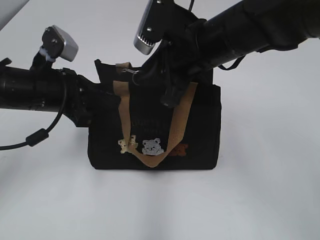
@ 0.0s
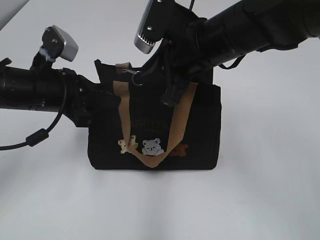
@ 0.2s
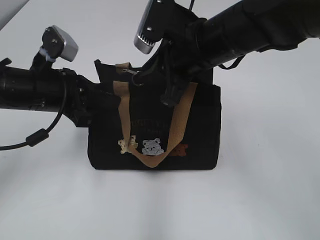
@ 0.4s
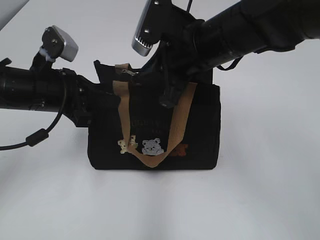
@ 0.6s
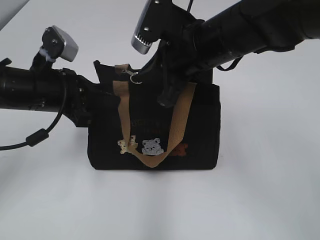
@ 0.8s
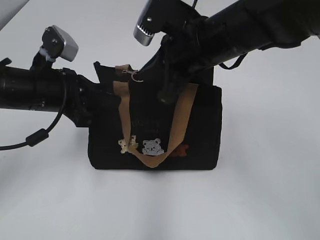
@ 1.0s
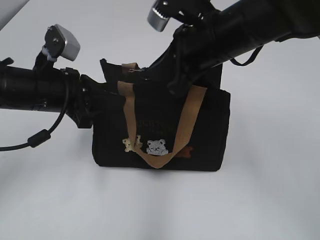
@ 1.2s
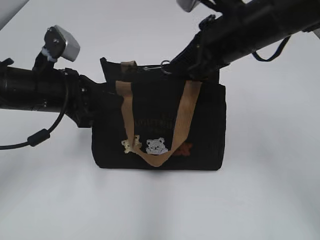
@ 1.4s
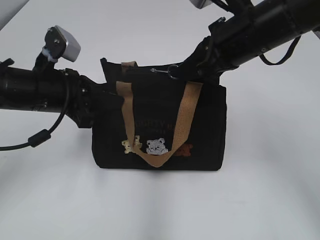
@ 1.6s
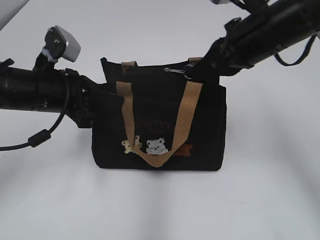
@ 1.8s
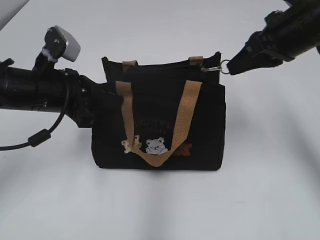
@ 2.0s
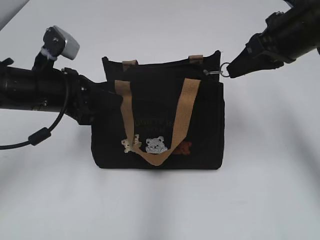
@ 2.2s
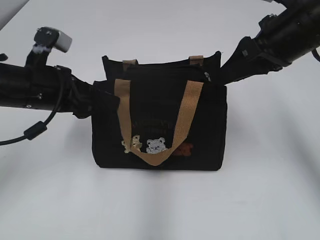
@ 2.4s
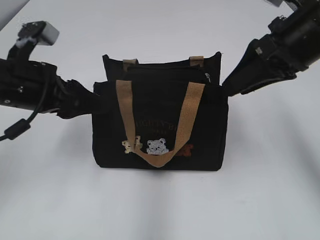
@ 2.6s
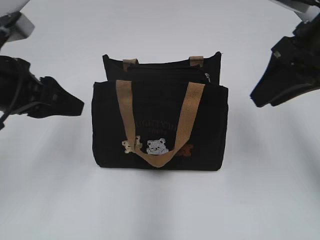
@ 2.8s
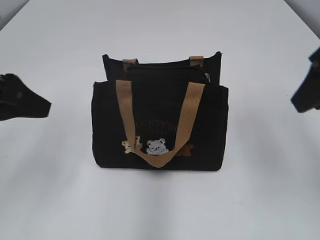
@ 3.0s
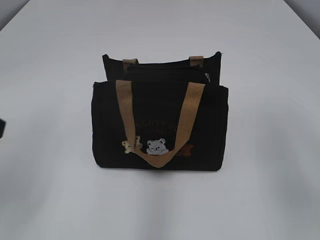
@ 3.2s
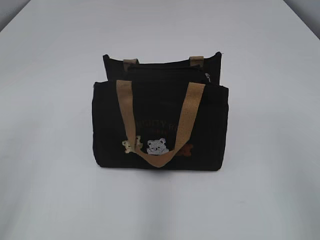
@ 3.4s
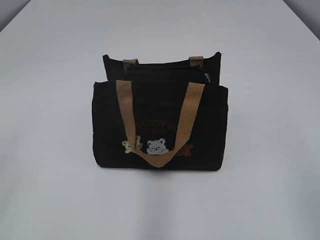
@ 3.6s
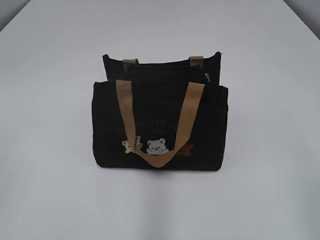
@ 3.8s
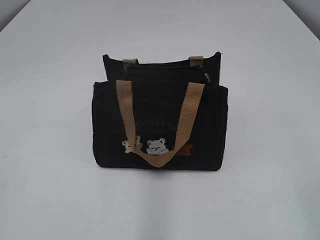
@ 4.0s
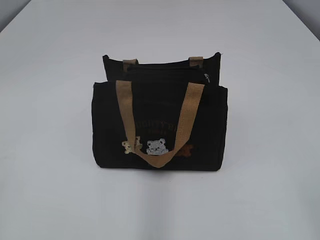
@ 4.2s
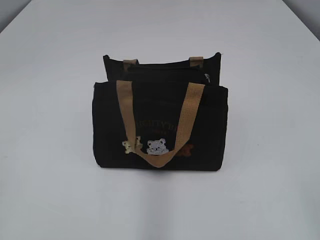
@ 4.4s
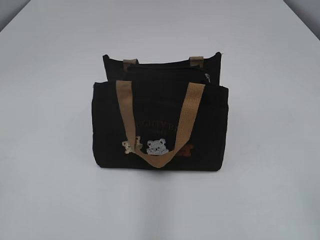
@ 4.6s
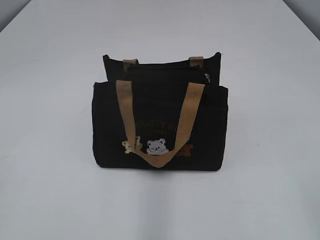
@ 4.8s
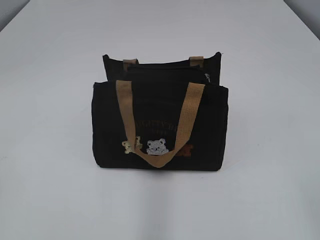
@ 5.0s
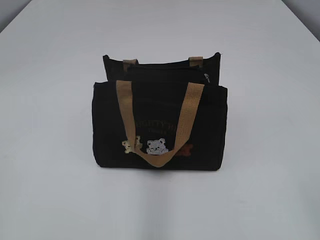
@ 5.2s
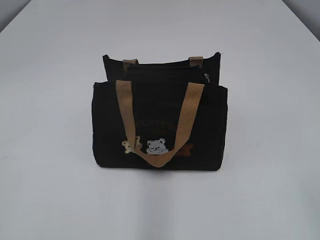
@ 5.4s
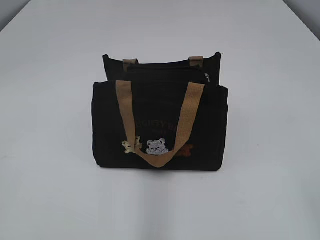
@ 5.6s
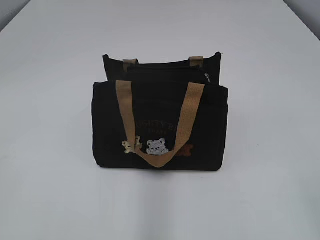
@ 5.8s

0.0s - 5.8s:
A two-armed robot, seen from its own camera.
Step, 0.0s - 2.2s: Pull open the zipper with your right hand.
0.0s - 1.4s: The right gripper closes up.
1.4s - 2.8s: The left gripper moves upward, approximately 5 cm, and opens up, while the right gripper shifts roughly 10 cm to the right and backward, and opens.
2.8s - 4.4s: The right gripper is displaced backward by roughly 30 cm. Meanwhile the left gripper travels backward and to the left by about 25 cm.
